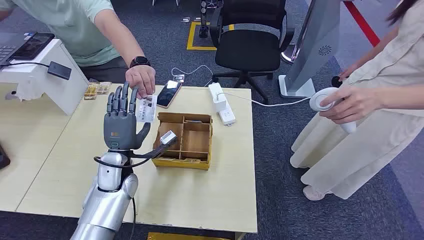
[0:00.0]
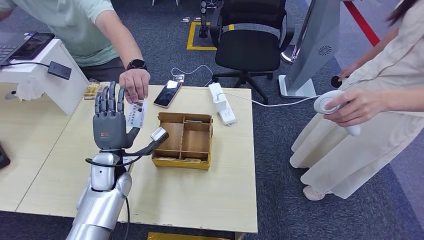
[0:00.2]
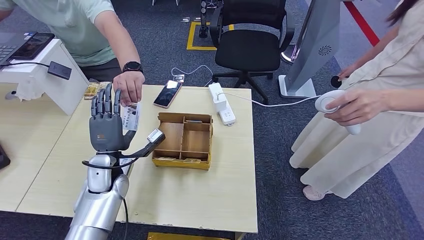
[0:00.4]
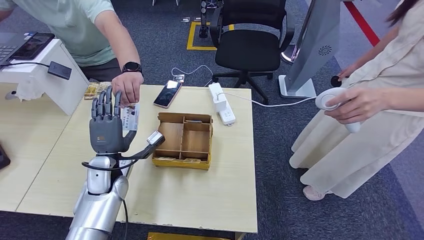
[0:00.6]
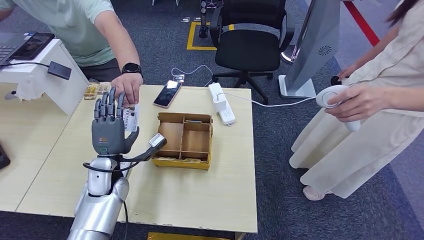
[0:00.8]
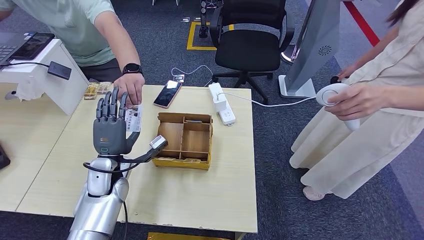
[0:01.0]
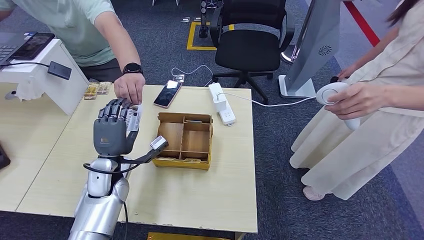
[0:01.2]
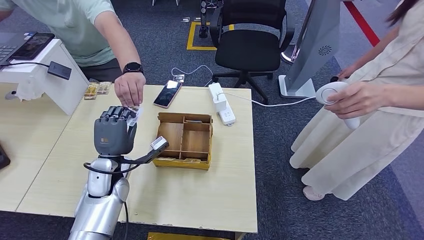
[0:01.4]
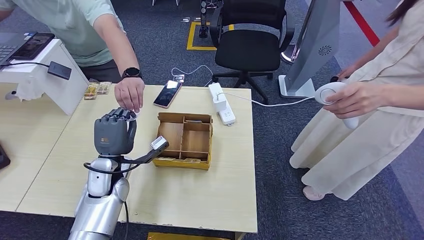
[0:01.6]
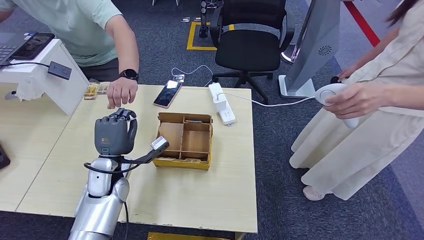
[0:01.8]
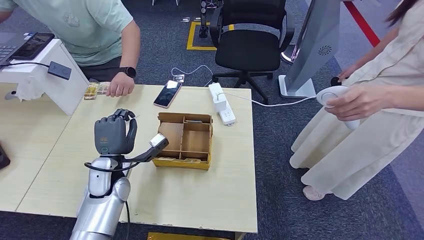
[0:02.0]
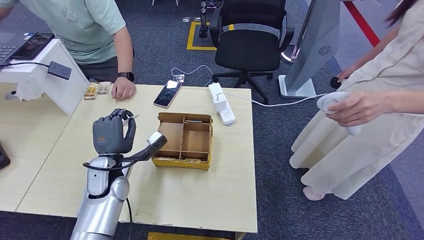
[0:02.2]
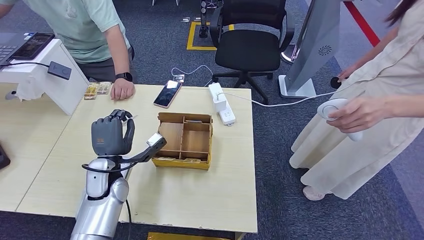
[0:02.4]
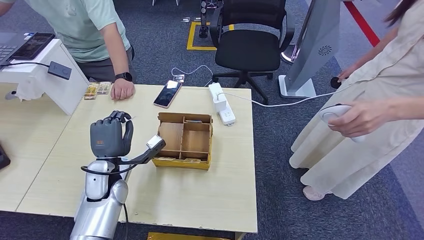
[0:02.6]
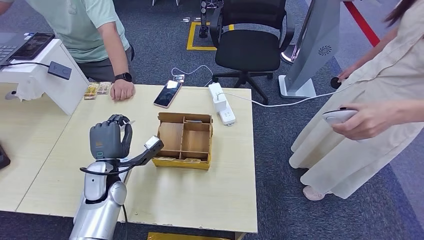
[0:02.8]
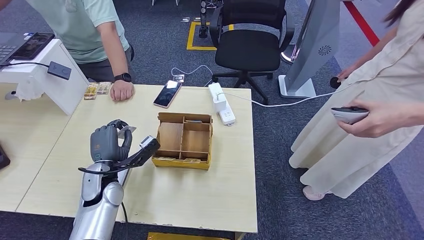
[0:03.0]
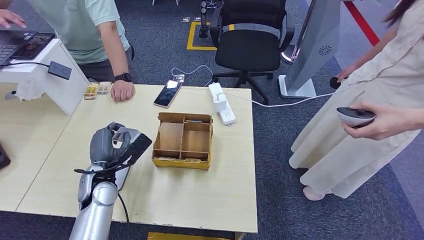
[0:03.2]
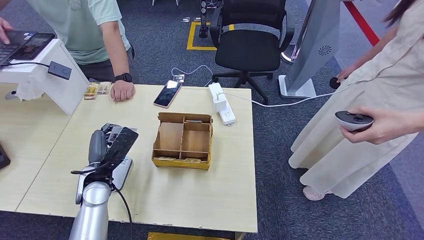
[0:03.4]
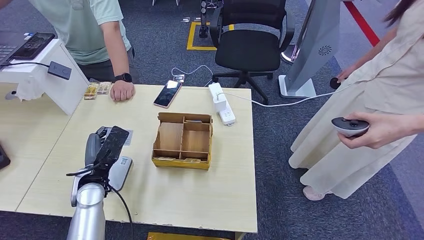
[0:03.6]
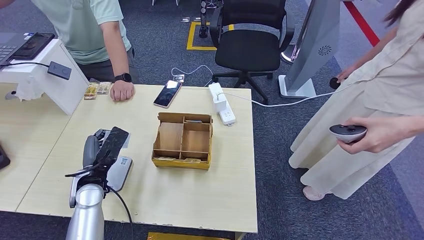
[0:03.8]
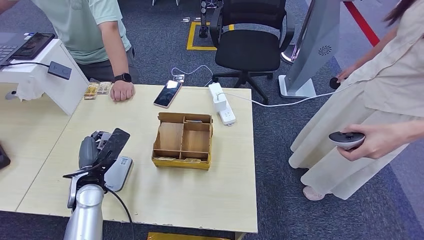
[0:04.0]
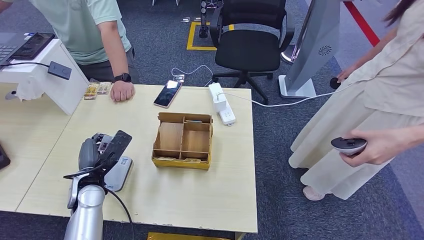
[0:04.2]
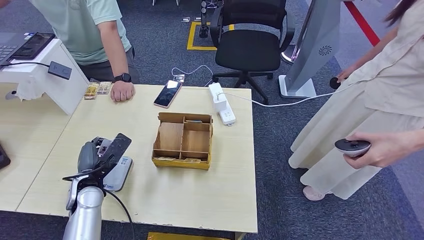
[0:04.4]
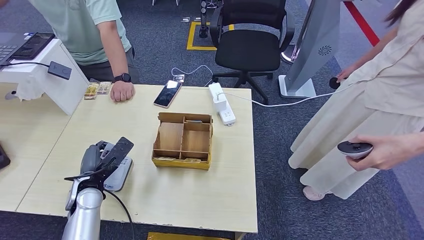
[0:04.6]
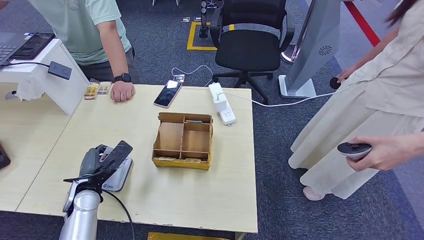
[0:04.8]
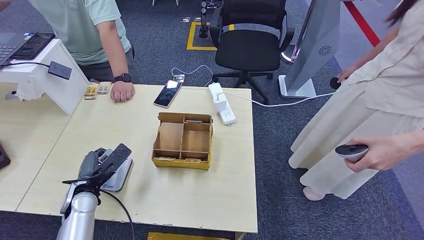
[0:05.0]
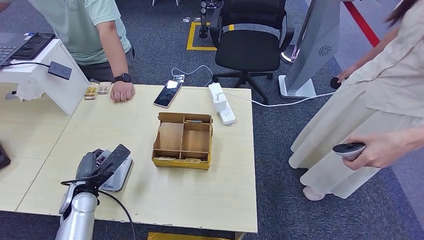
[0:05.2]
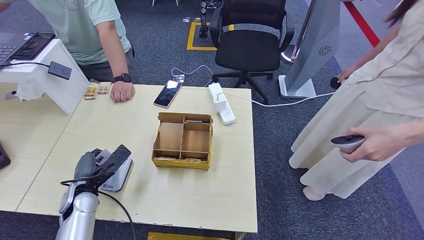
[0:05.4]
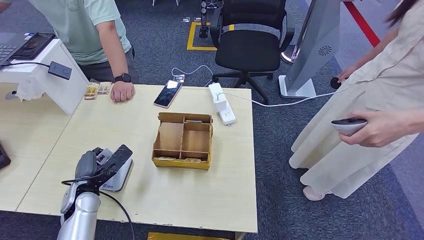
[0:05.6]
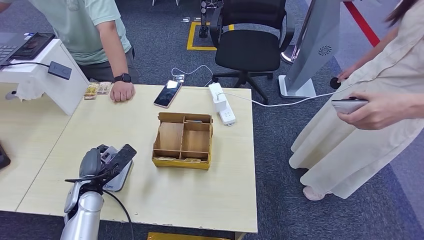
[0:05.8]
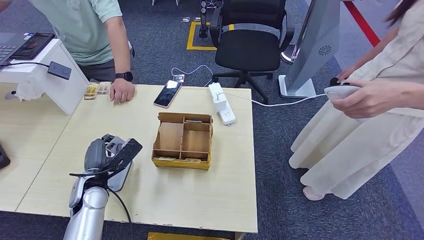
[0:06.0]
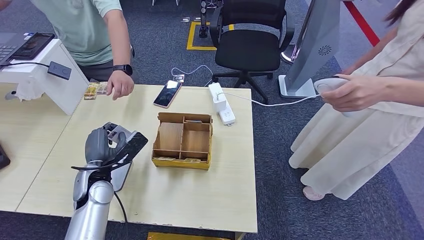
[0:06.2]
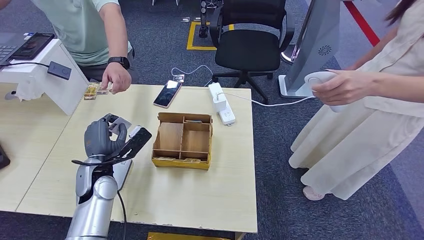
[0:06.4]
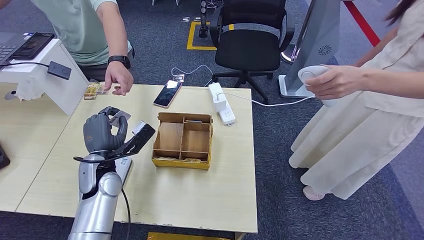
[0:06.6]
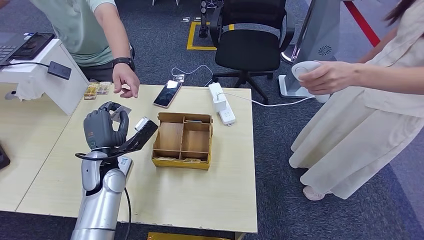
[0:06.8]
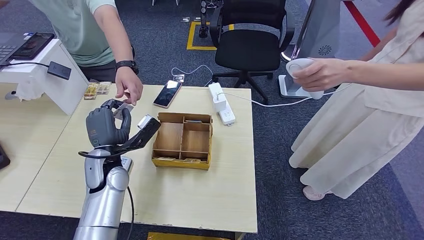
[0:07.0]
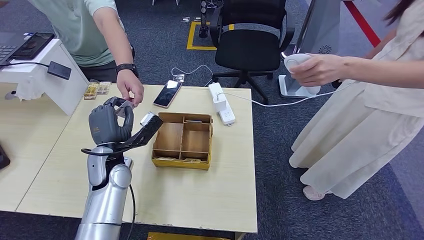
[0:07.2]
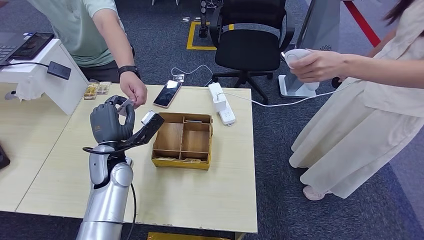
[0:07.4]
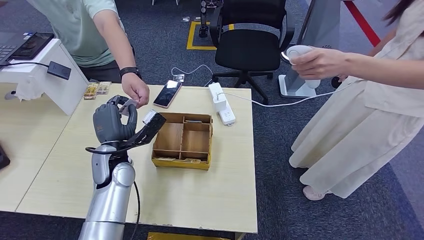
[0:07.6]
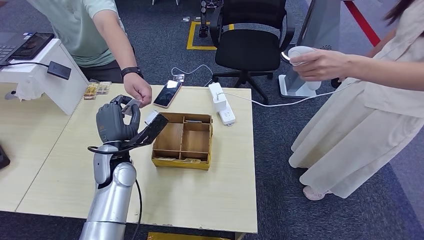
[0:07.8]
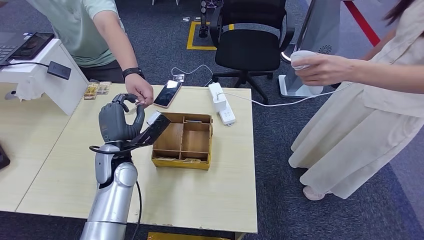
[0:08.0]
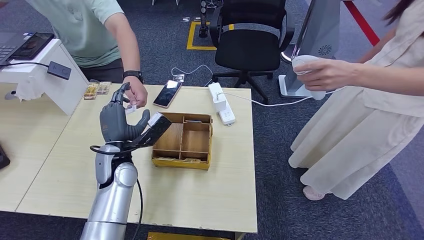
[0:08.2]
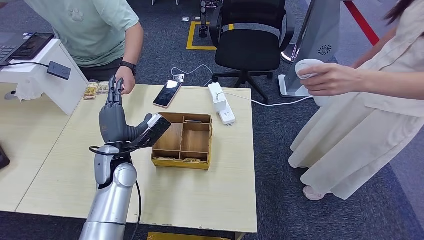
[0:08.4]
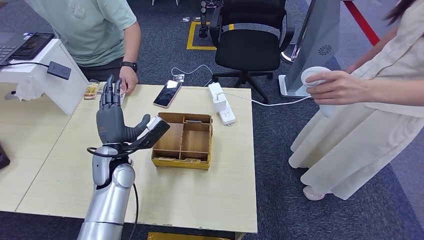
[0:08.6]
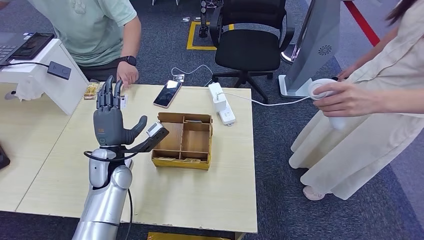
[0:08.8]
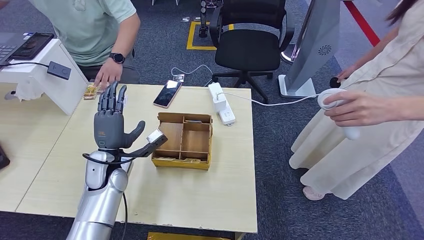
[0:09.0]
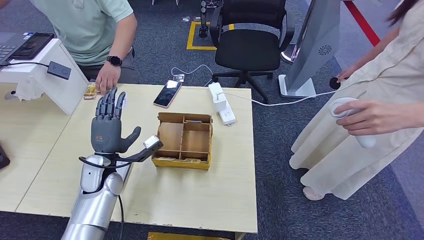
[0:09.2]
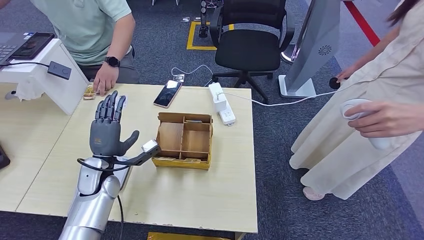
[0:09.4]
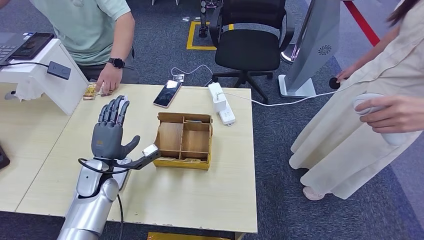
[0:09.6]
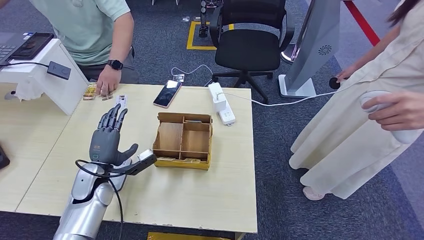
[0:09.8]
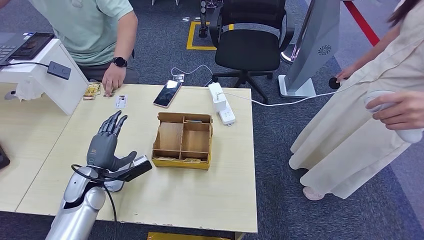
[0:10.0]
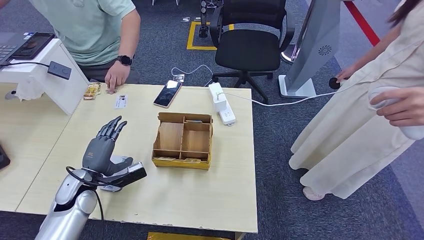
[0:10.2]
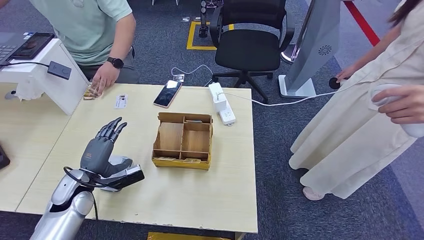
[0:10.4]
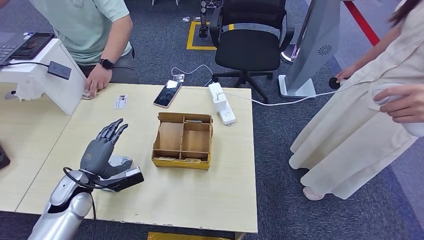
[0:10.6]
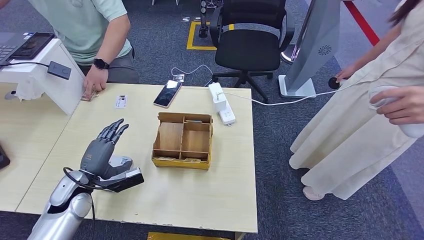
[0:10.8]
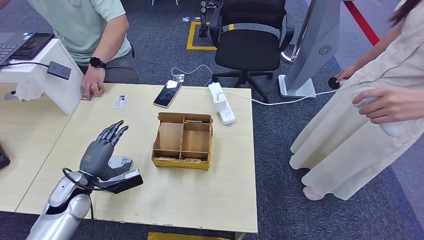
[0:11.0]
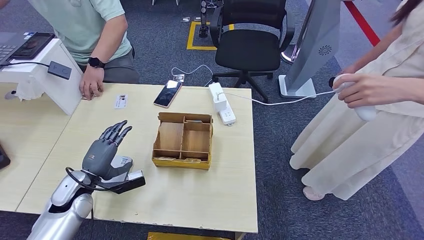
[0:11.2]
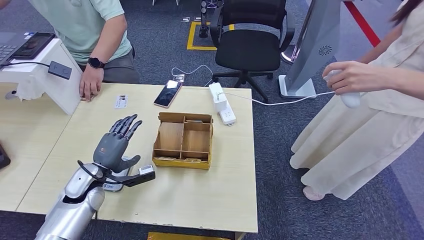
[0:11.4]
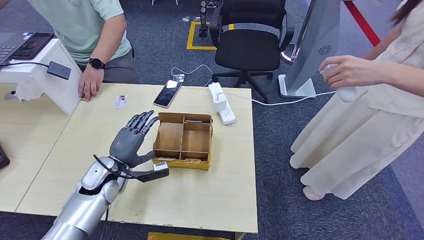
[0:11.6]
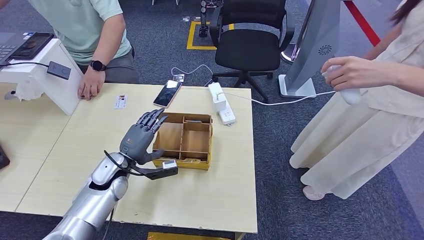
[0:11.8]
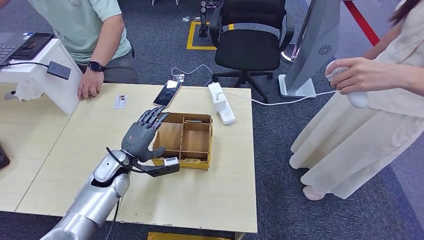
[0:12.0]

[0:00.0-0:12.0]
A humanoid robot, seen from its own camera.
Step, 0:00.0 to 0:02.0: Take the ID card from the person's hand.
Step, 0:02.2 to 0:06.0: Place the ID card on the card reader.
Step, 0:06.2 to 0:08.2: Hand the ID card to the person.
0:03.0 to 0:04.4: The left hand shifts by about 5 cm.
0:04.4 to 0:06.0: The hands stay close to where they were, moving slightly.
0:06.0 to 0:07.6: The left hand moves to the right and upward, about 10 cm.
0:07.6 to 0:09.0: The hands stay close to where they were, moving slightly.
0:09.0 to 0:10.4: The left hand travels to the left and downward by some 10 cm.
0:10.4 to 0:12.0: The left hand travels to the right and forward by approximately 10 cm.

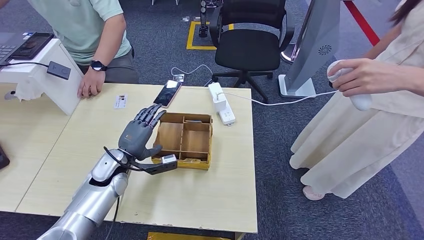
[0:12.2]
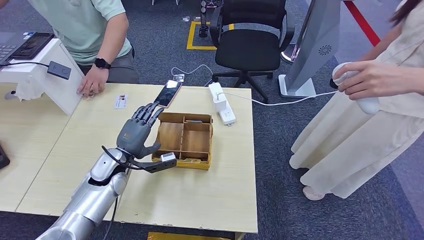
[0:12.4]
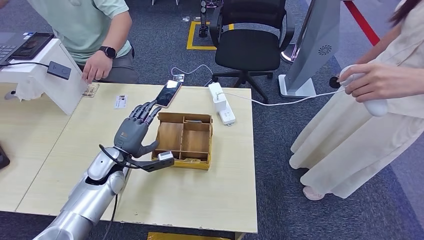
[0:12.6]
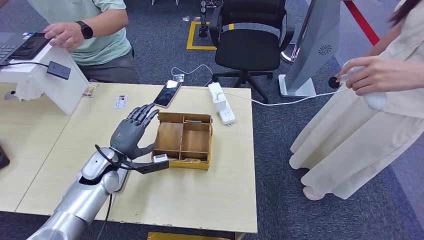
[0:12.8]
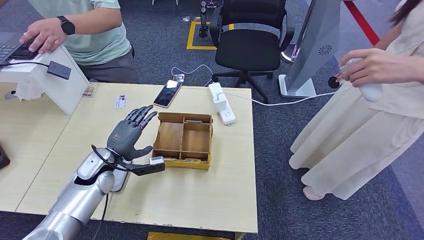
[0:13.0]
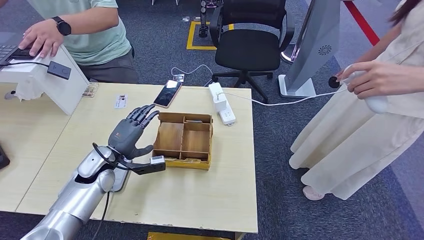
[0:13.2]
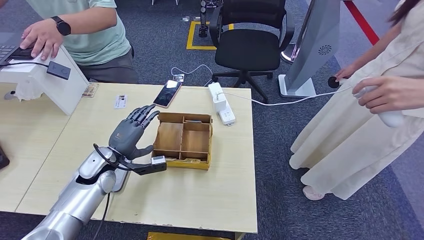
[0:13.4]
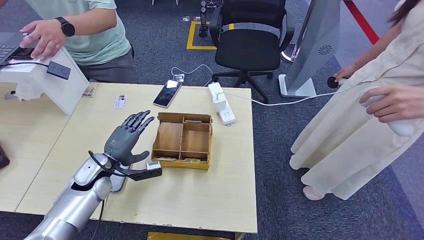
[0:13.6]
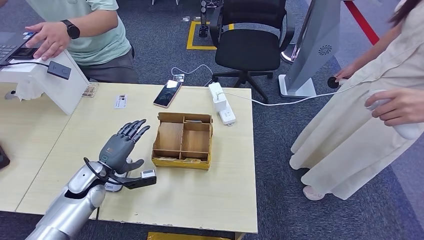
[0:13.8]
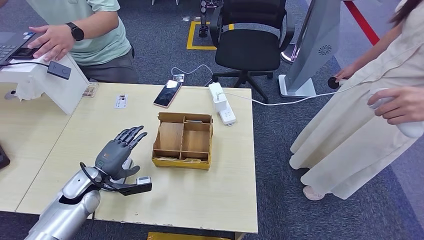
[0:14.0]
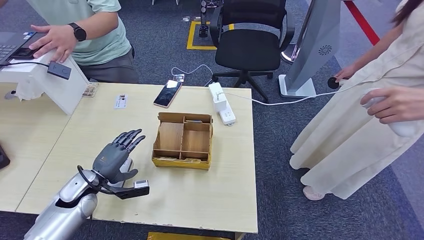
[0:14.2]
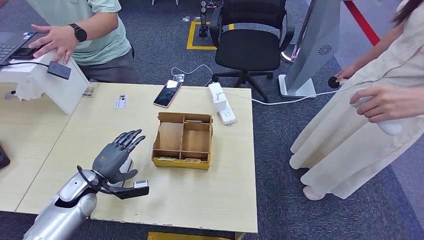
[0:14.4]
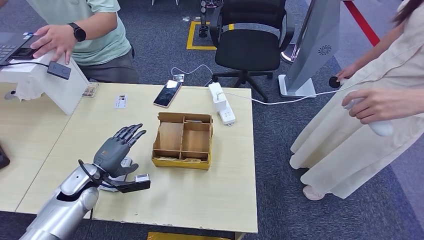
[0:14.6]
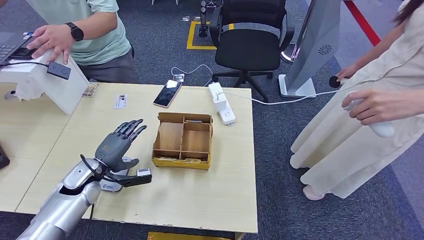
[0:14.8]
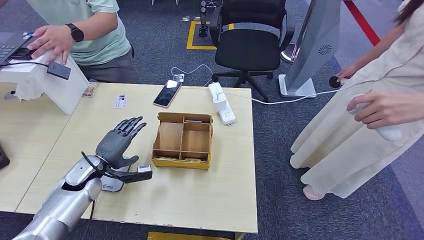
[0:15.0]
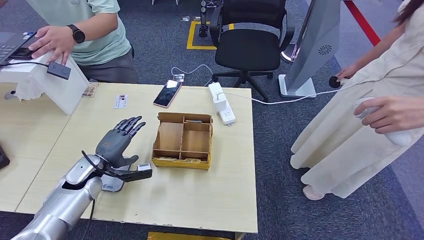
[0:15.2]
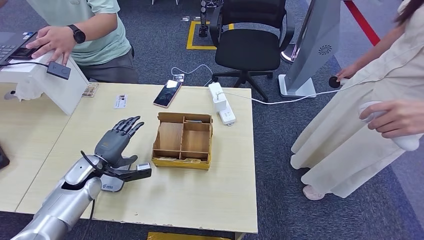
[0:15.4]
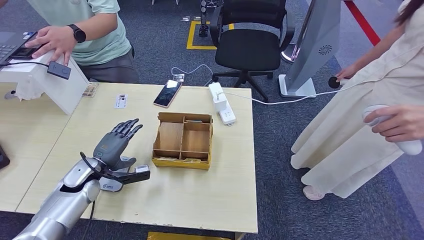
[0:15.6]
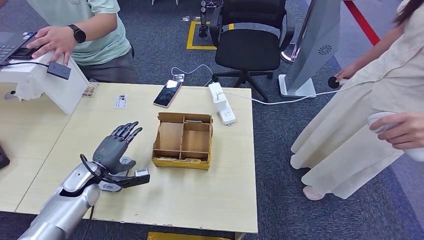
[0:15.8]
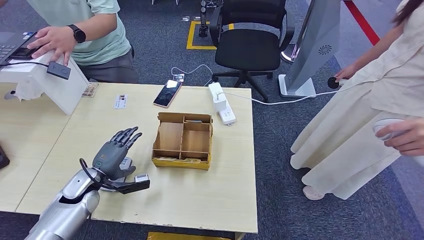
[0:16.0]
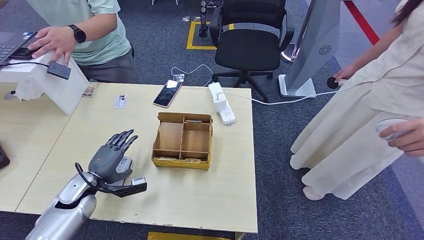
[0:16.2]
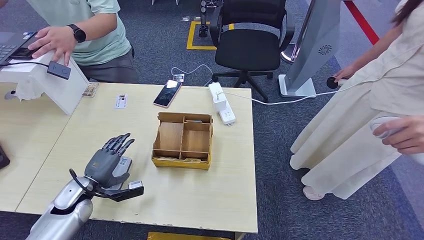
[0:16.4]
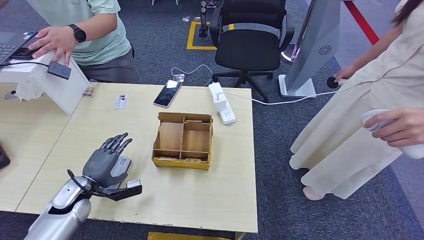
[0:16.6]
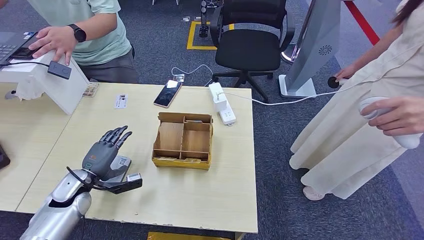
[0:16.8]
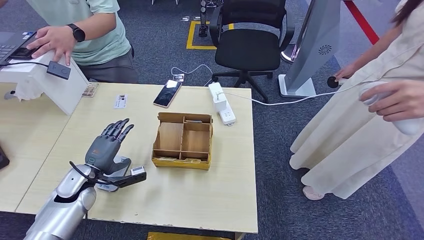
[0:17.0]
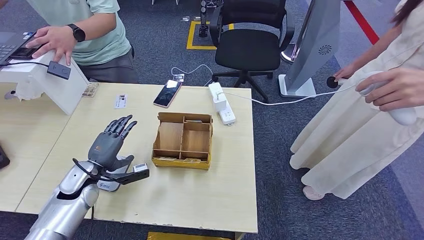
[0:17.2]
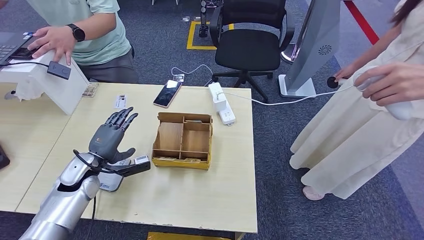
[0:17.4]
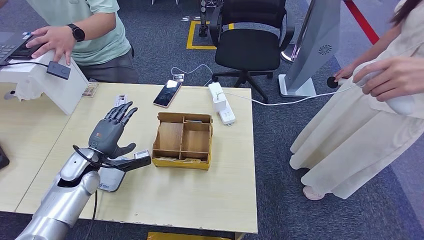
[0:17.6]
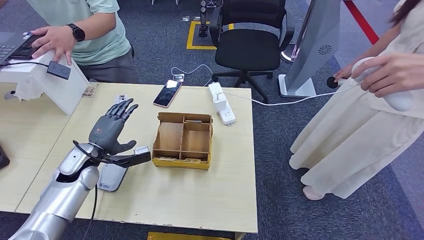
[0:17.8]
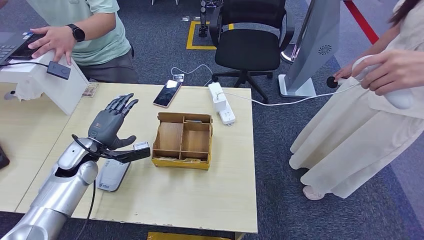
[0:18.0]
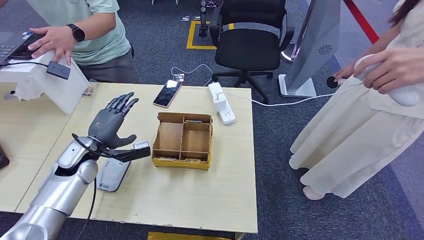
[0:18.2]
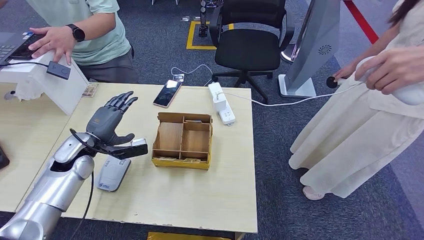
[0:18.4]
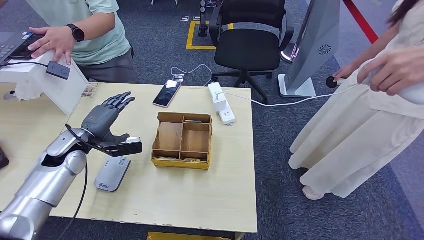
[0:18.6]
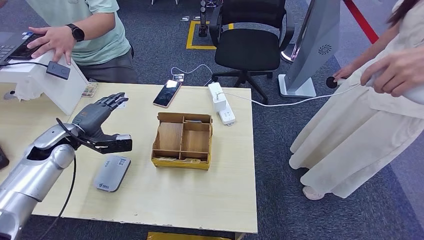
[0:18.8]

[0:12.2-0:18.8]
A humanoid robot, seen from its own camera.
0:12.2 to 0:13.8: The left hand is displaced to the left by approximately 5 cm.
0:13.8 to 0:15.4: There are only small adjustments of the hands.
0:17.2 to 0:18.8: The left hand goes about 10 cm upward and forward.
